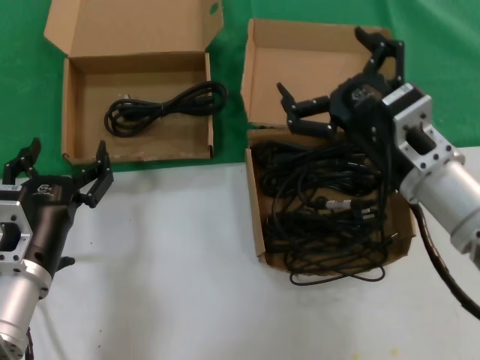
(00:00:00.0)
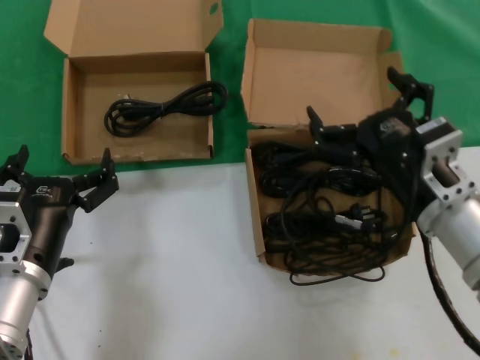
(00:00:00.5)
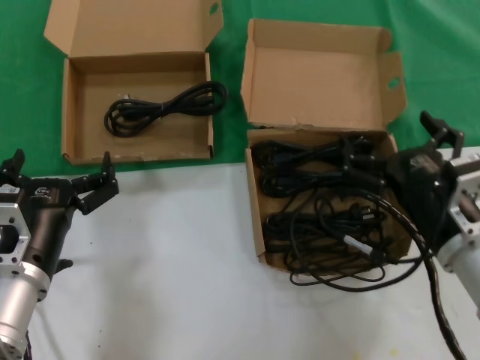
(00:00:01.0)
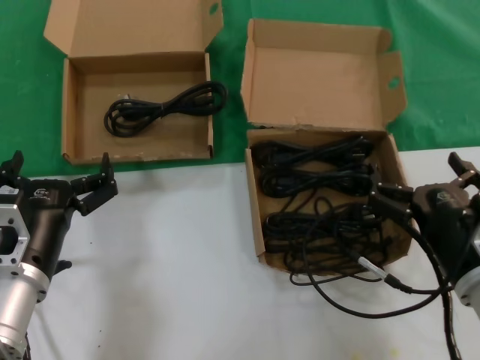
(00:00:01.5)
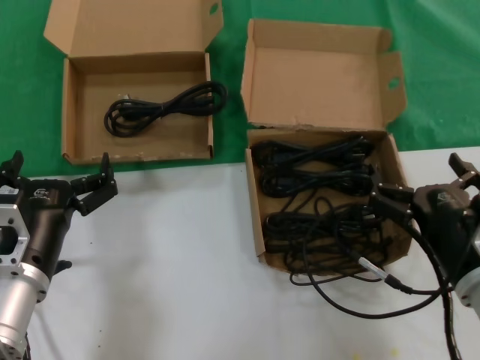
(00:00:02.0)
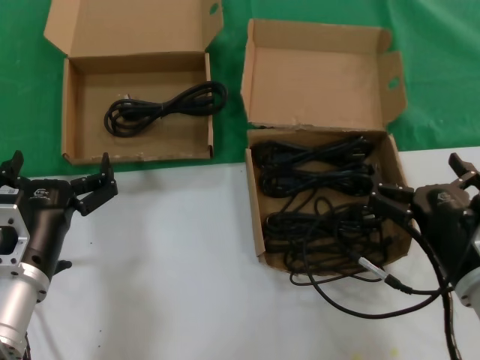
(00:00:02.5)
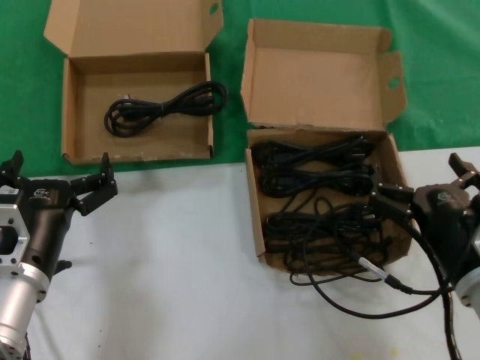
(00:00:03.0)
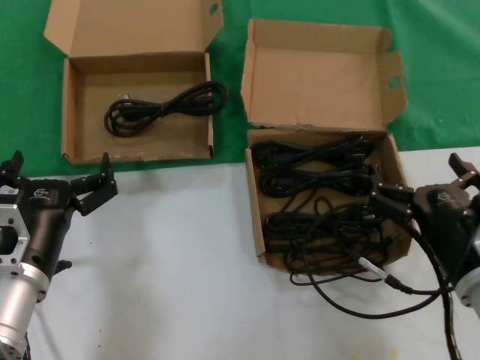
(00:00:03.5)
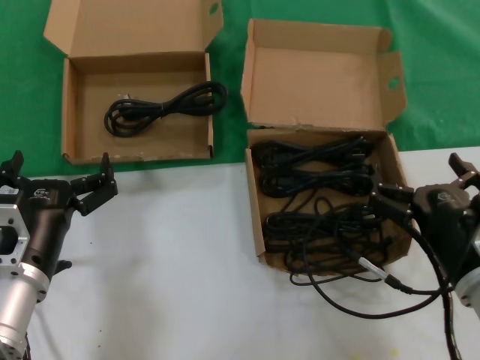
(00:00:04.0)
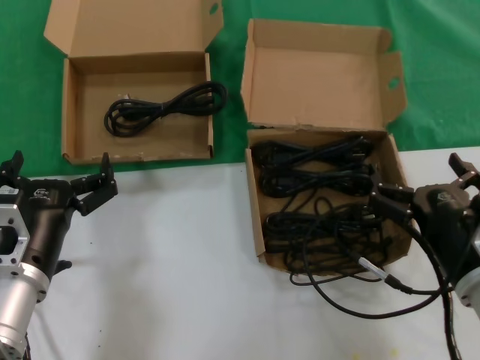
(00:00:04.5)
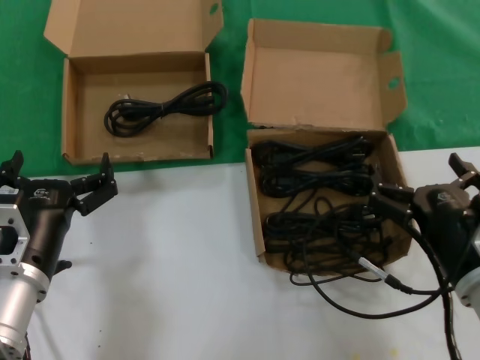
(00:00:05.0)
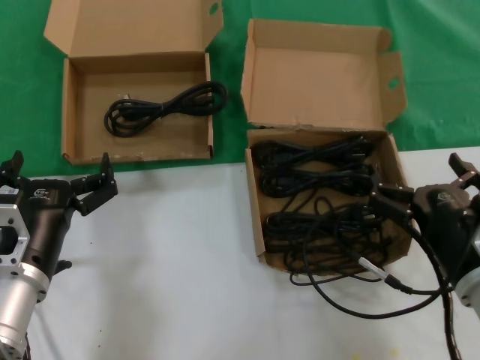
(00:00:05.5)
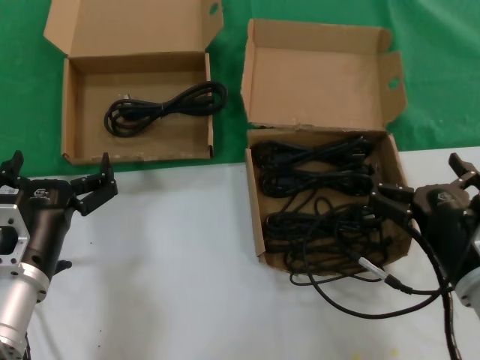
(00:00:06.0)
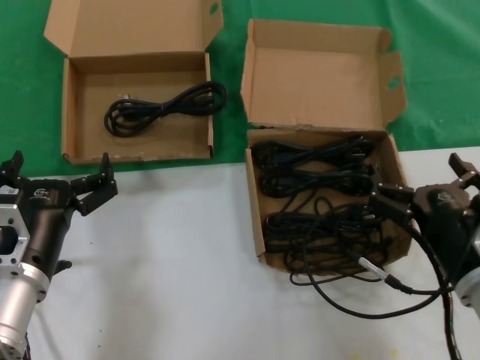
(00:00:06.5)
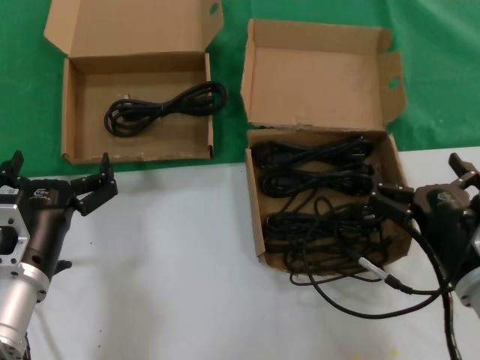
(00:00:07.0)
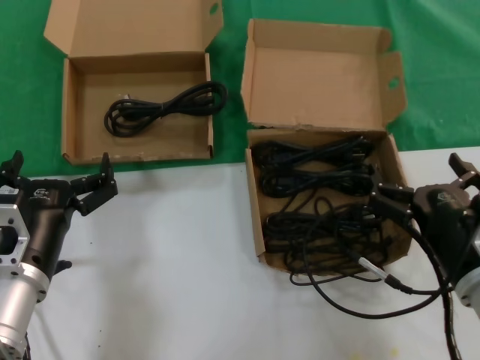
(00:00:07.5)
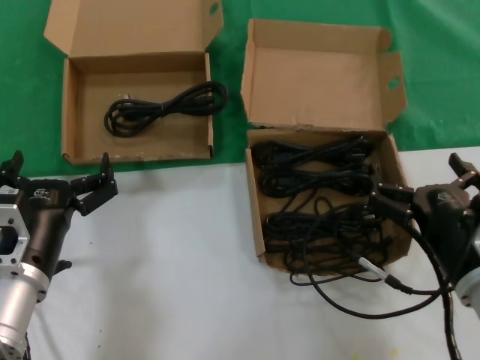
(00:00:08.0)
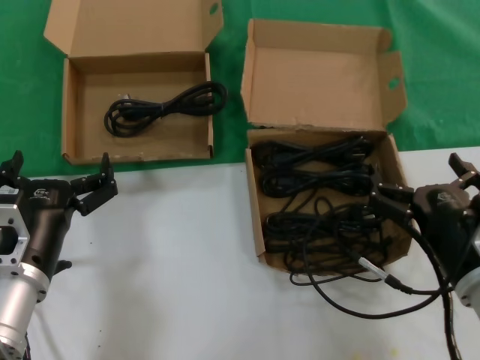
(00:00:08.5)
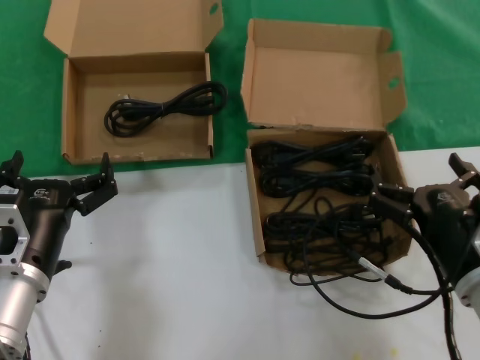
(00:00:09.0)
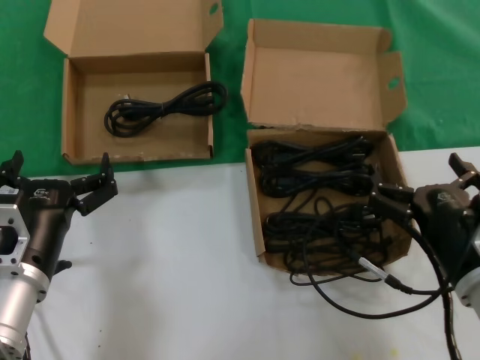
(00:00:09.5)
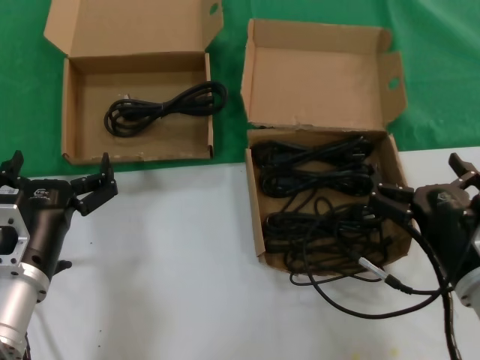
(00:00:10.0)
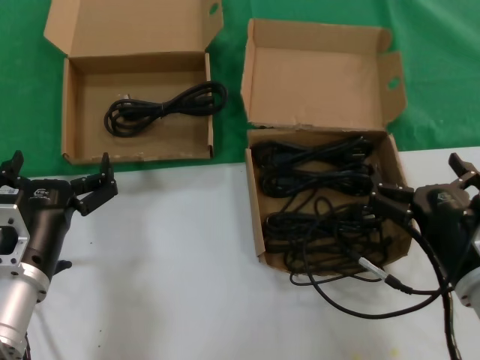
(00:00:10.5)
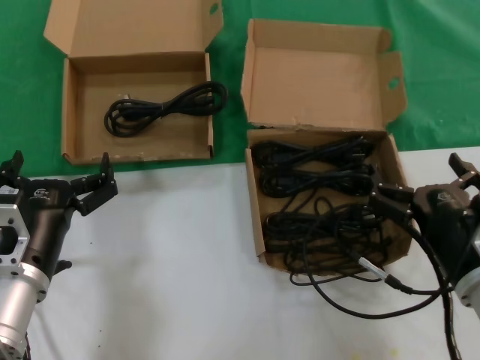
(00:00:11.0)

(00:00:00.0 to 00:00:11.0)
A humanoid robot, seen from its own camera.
Task of the whole recording: take the parts from the box containing them and put them into an empty box.
00:00:00.0 - 00:00:02.0: The right hand goes roughly 15 cm downward, backward and to the right.
00:00:02.0 - 00:00:11.0: The two hands keep their place.

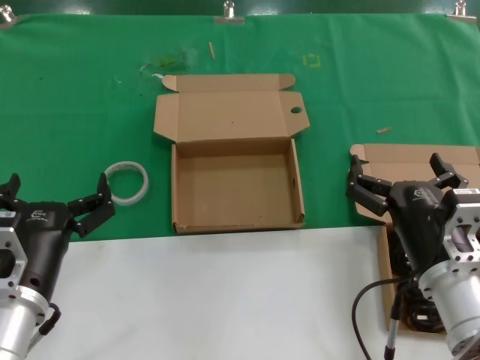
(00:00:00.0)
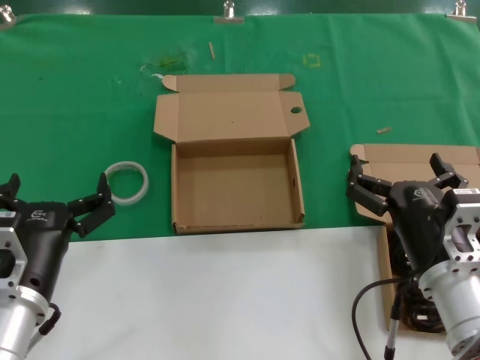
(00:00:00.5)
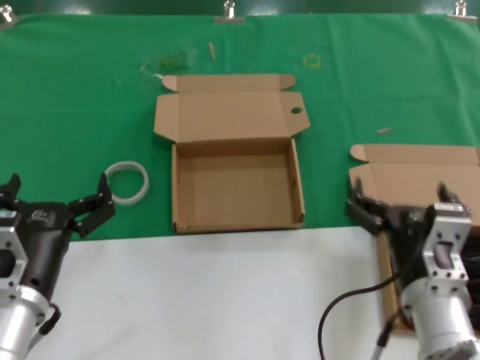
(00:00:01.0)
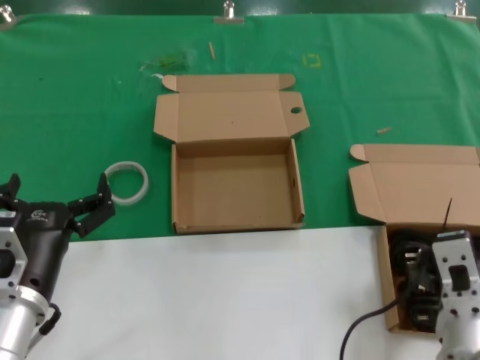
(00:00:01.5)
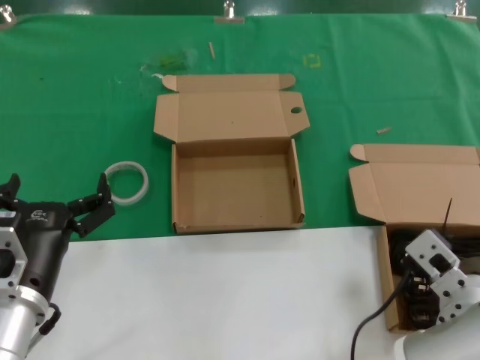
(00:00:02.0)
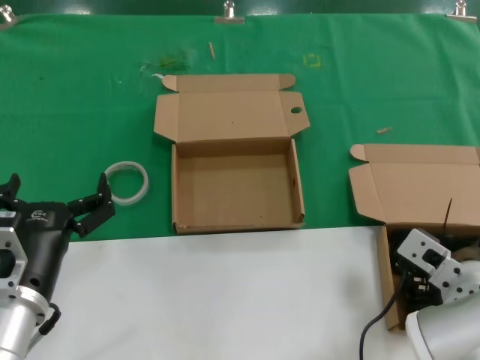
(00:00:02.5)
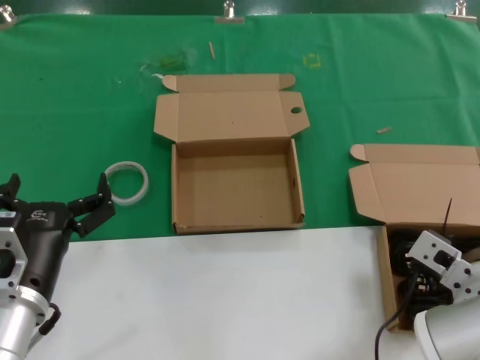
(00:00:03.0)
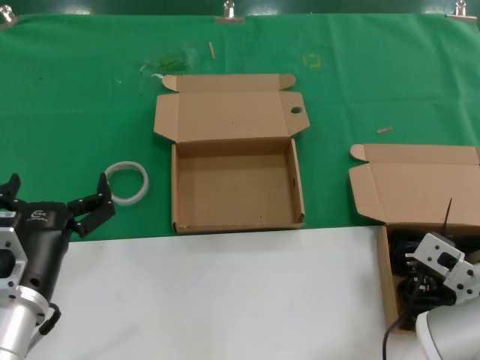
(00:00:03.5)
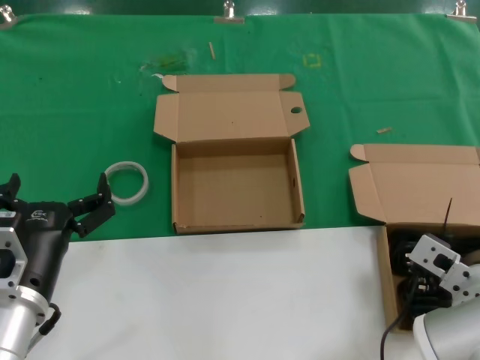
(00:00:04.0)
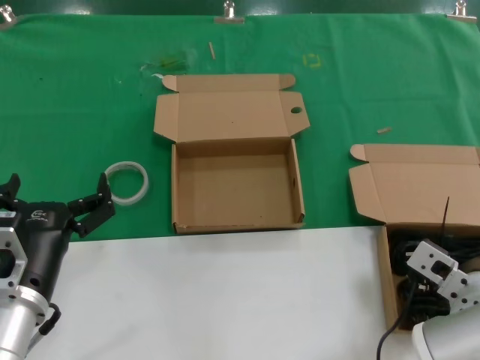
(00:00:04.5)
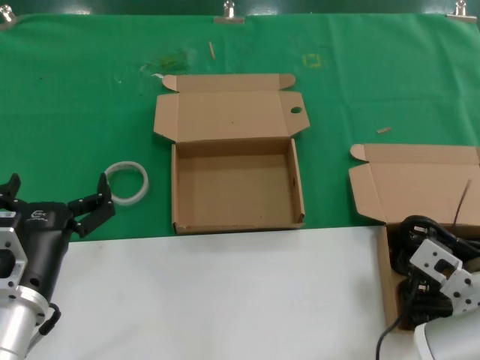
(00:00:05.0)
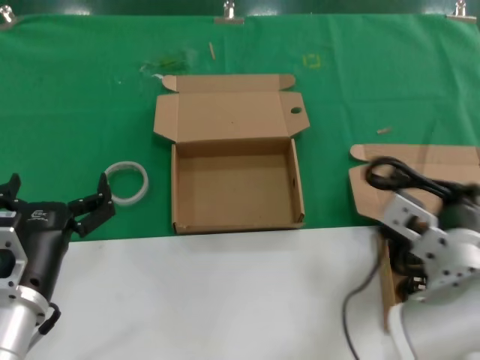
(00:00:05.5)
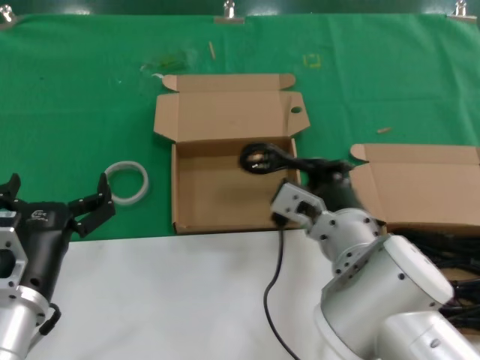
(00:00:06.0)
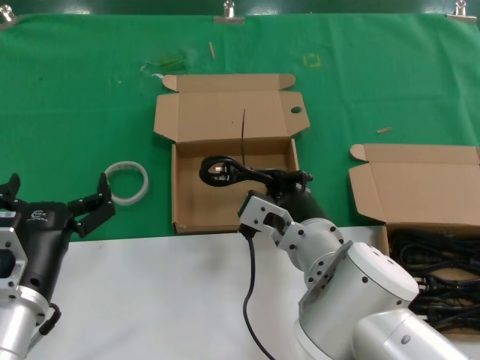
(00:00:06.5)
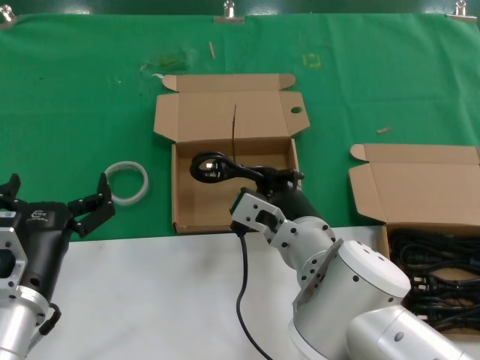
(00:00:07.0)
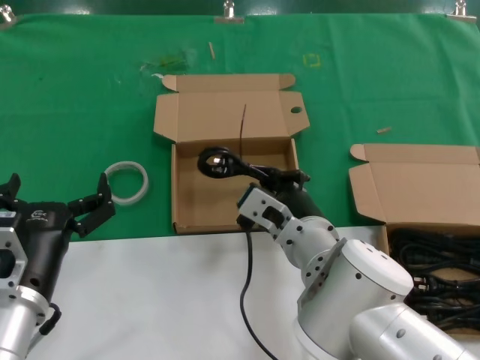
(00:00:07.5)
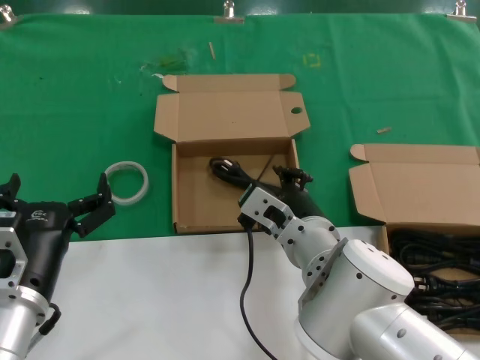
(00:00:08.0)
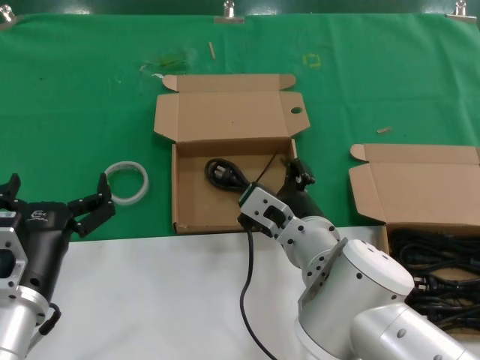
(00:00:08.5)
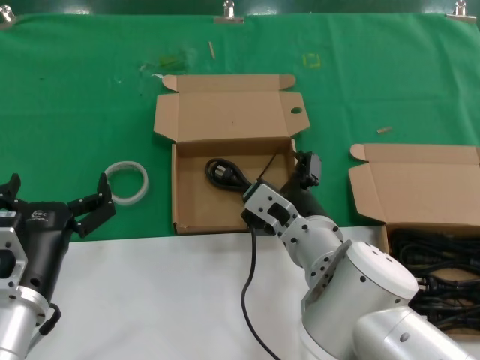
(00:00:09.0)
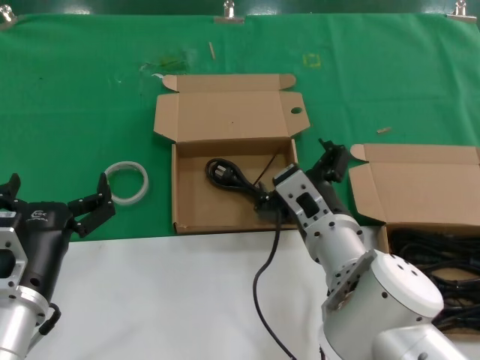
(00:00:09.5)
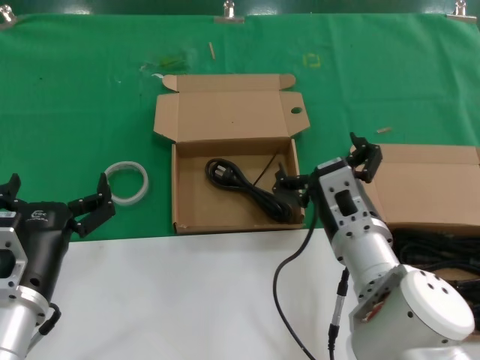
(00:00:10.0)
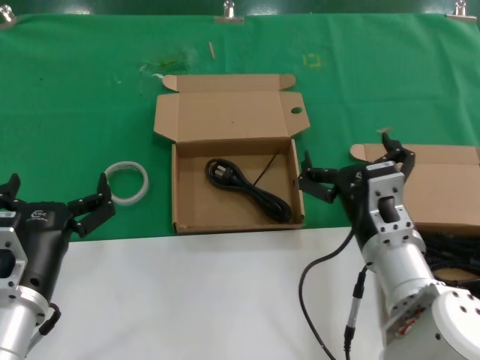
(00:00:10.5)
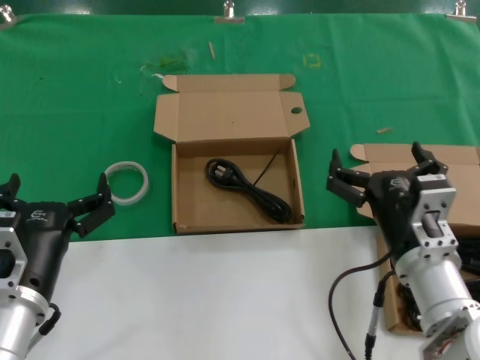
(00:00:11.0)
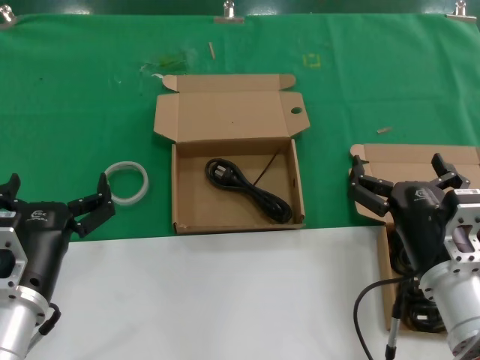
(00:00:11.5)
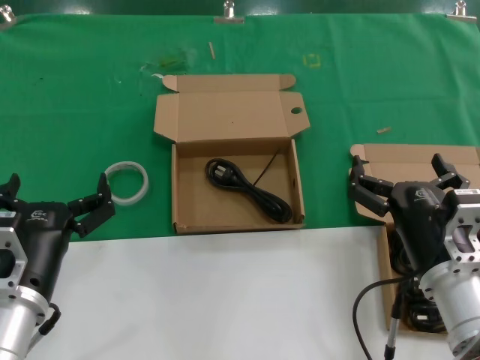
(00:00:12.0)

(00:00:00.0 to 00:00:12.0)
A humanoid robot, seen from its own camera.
Task of the whole recording: take the parts from the box containing them and put them into an empty box.
Step, 00:00:00.0 - 00:00:04.5: Grasp the data cable.
Step, 00:00:05.0 - 00:00:08.0: Place the data cable in the another box.
00:00:02.0 - 00:00:04.0: The hands move only a little.
00:00:04.0 - 00:00:06.0: The right hand moves to the left, about 15 cm.
00:00:06.0 - 00:00:08.0: The hands make only small movements.
00:00:08.0 - 00:00:10.0: The right hand goes some 5 cm to the right.
00:00:10.0 - 00:00:12.0: The right hand travels to the right and backward by some 10 cm.

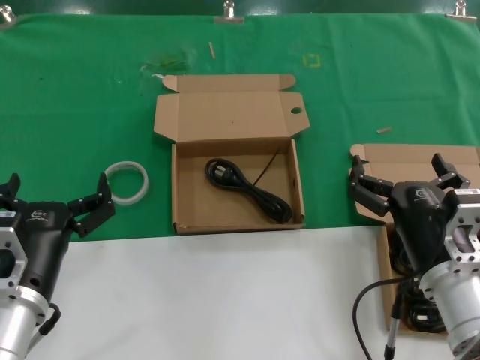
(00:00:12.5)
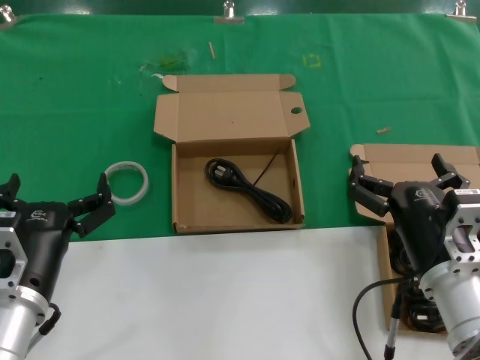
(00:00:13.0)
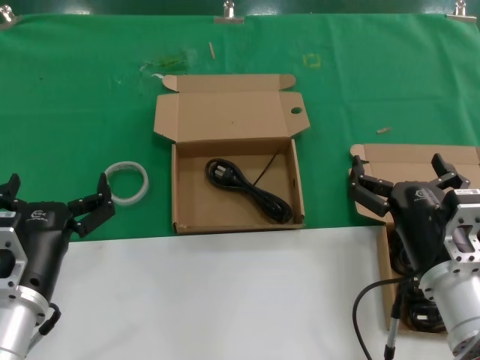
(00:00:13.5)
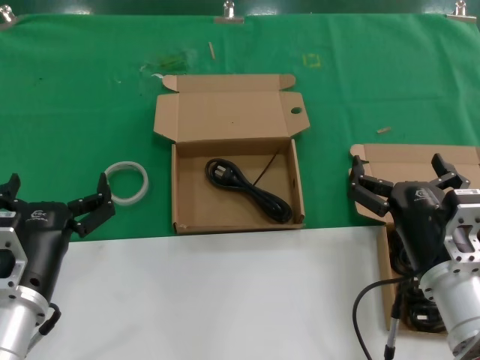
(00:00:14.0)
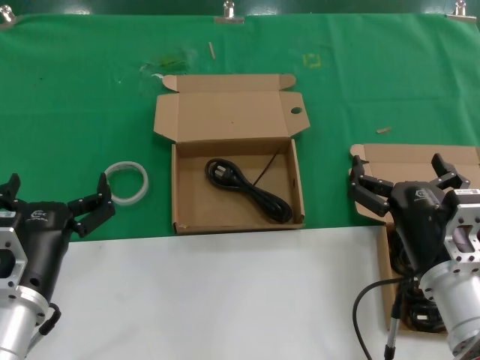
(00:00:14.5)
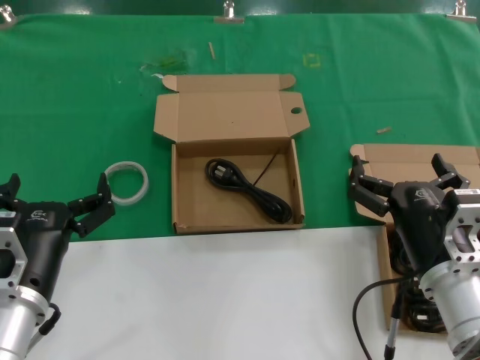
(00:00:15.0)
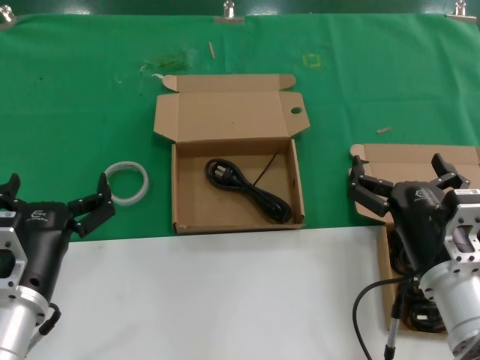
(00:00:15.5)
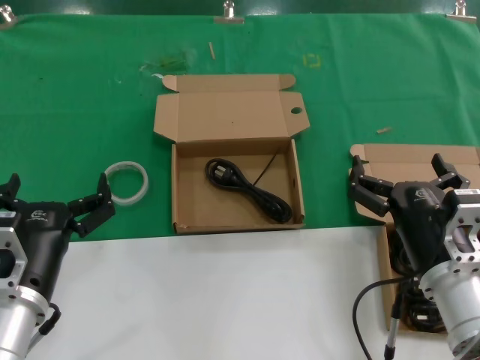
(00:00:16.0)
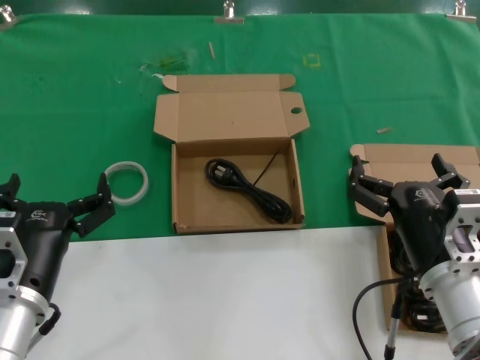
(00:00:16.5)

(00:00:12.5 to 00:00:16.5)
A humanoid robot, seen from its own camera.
Task of the whole recording: take the parts from the box containing them and put them into an empty box.
00:00:12.5 - 00:00:16.5: Neither hand changes place.
